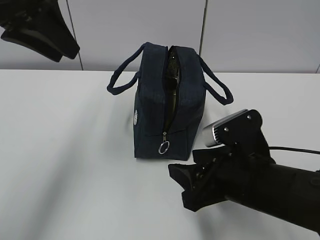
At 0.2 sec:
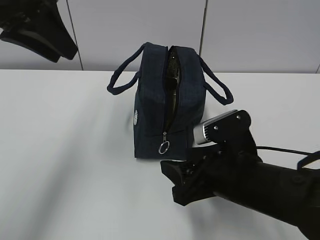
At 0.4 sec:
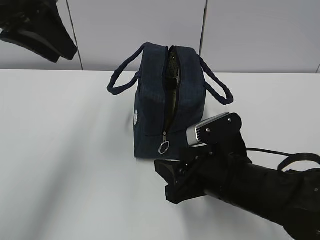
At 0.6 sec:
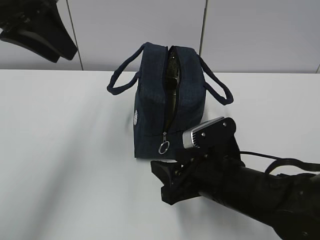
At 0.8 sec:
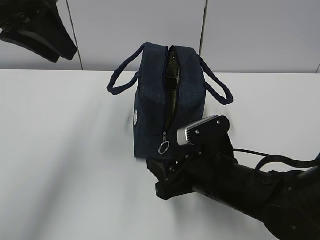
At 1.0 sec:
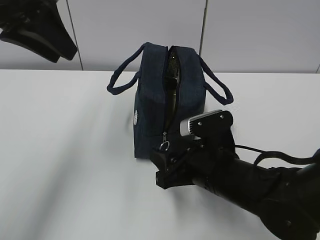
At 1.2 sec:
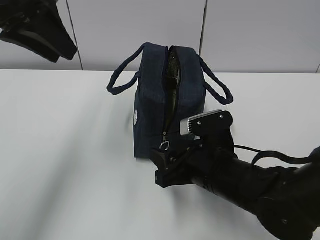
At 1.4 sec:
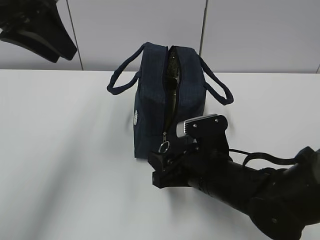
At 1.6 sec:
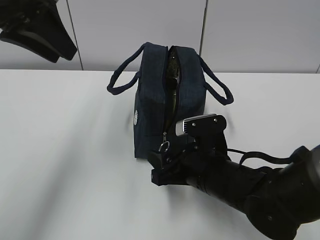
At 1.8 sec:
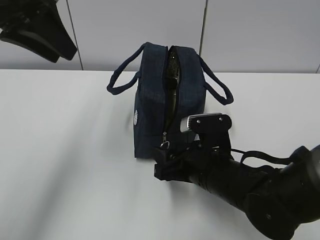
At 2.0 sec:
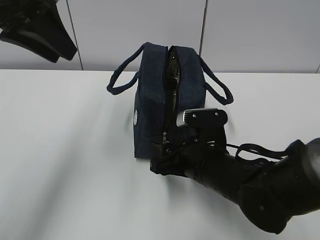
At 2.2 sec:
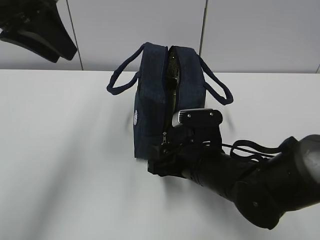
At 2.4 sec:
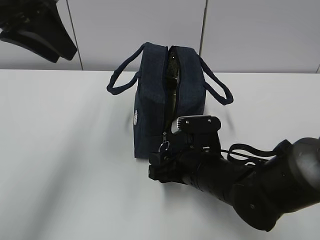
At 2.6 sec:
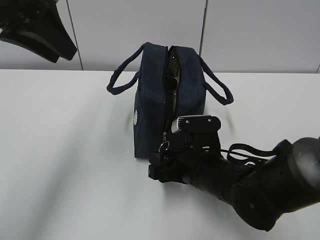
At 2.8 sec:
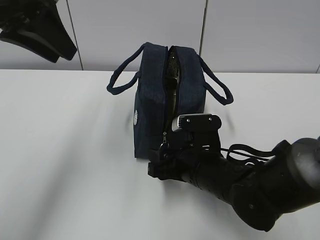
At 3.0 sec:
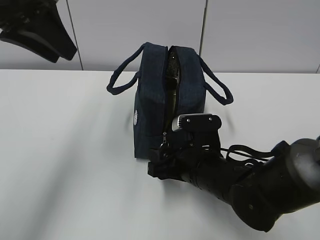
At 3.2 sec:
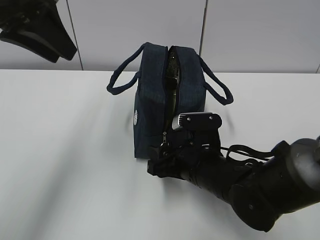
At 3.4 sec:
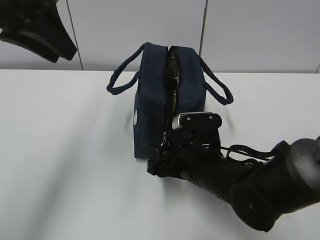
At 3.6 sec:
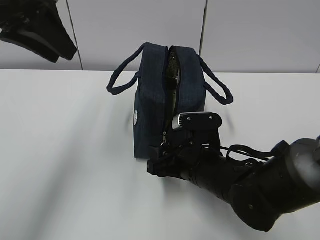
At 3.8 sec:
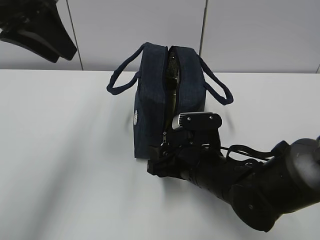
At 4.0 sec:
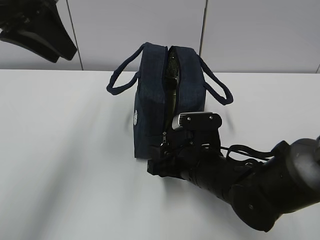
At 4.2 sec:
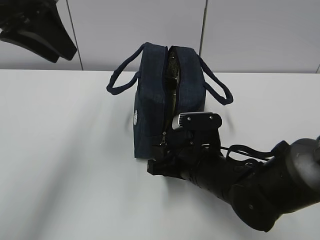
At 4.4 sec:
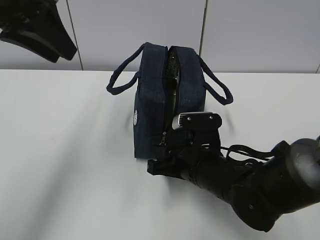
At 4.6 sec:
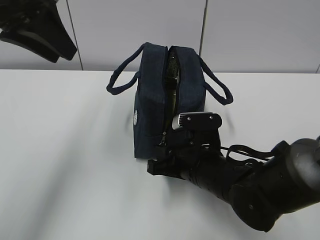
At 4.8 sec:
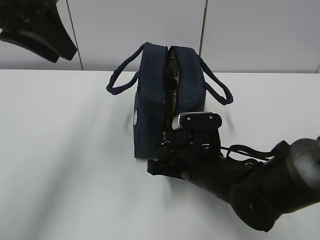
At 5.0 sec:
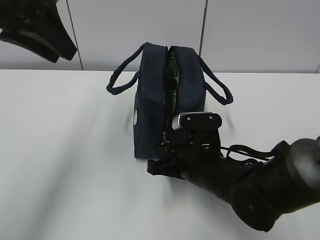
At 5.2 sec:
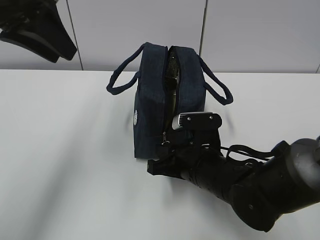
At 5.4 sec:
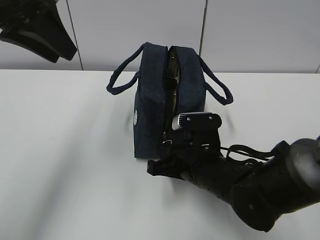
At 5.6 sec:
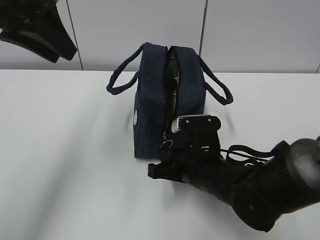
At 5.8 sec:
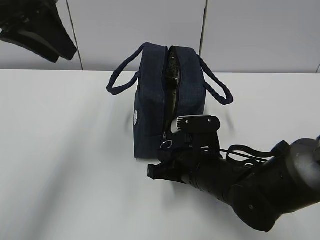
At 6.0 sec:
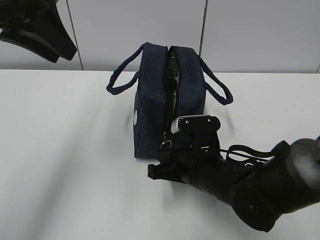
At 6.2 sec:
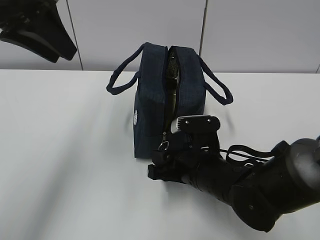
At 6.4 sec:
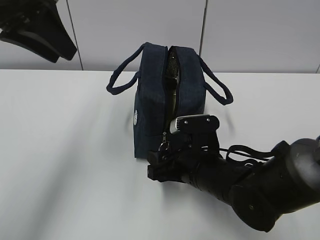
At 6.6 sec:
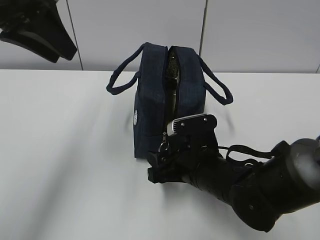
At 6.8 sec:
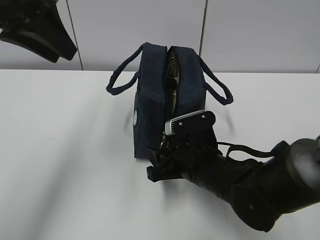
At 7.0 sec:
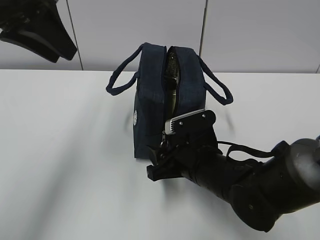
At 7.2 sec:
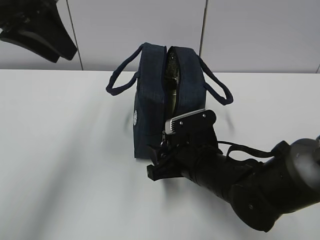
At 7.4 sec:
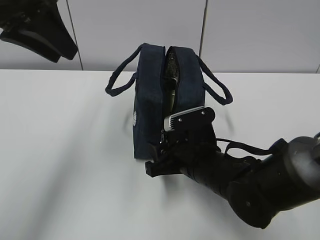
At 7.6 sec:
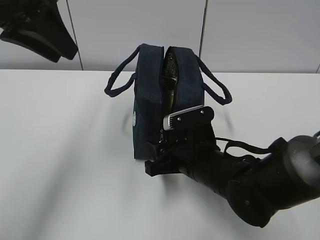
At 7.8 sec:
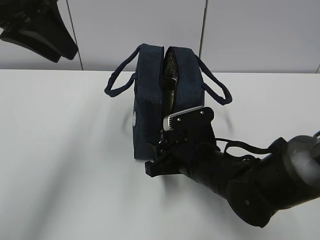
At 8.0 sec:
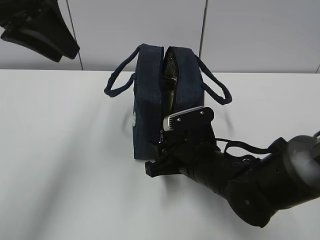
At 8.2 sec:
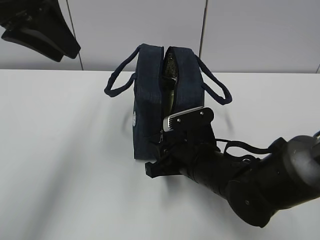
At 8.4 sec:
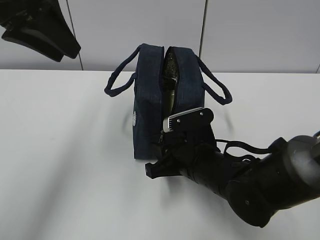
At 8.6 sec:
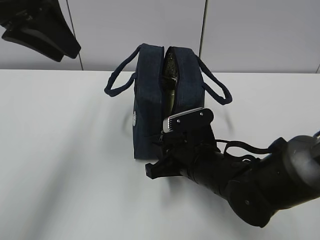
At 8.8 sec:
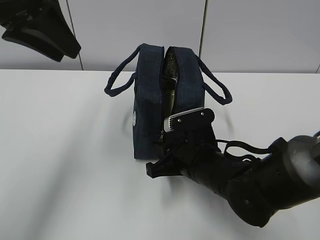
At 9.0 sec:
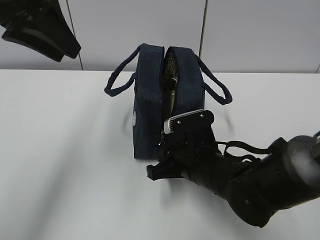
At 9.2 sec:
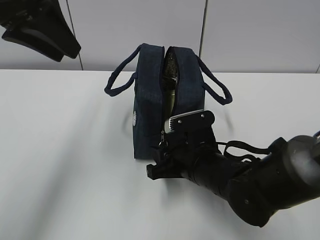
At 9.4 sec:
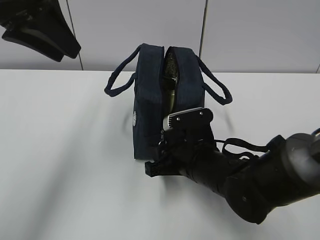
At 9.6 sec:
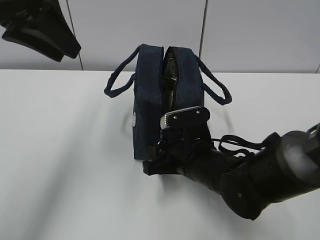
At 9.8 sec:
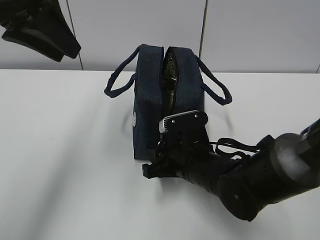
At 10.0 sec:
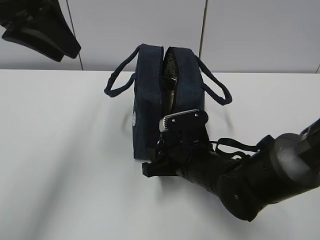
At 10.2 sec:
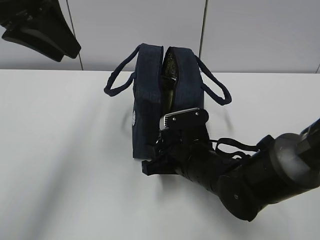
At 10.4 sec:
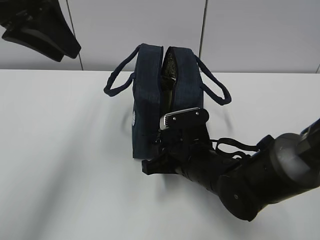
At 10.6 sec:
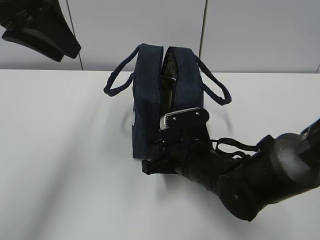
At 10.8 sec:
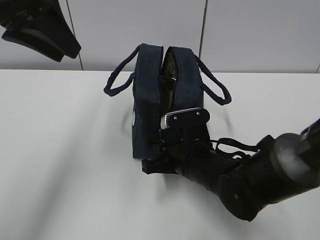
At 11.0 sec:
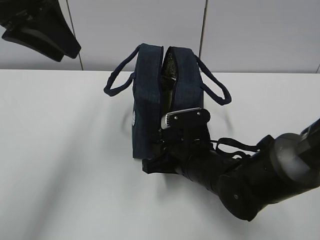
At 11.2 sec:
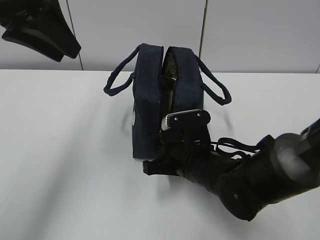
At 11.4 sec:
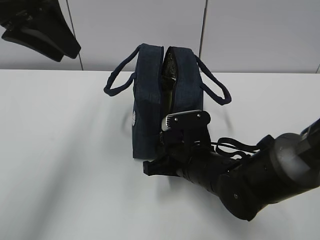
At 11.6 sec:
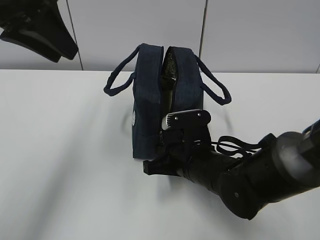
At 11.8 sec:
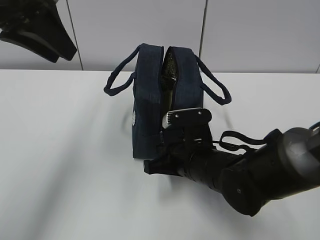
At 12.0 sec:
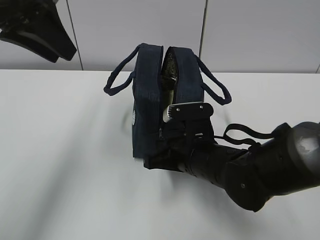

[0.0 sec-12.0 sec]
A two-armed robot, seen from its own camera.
0.0 sec to 1.6 sec: The right gripper travels downward and forward by roughly 10 cm.
1.6 sec to 3.0 sec: There are only small adjustments of the grippers.
3.0 sec to 4.4 sec: The two grippers keep their place.
4.4 sec to 6.0 sec: The right gripper closes.
6.0 sec to 7.6 sec: The right gripper opens.
7.6 sec to 9.0 sec: The two grippers keep their place.
9.0 sec to 10.4 sec: The two grippers keep their place.
10.4 sec to 12.0 sec: The right gripper closes its fingers.

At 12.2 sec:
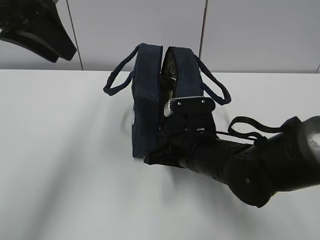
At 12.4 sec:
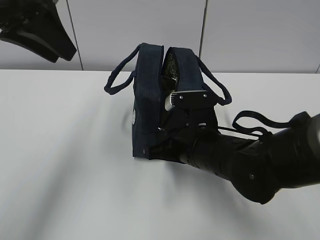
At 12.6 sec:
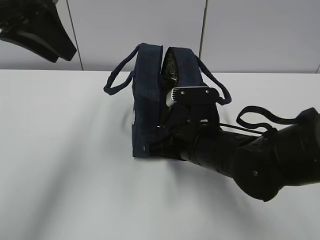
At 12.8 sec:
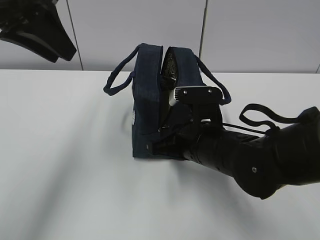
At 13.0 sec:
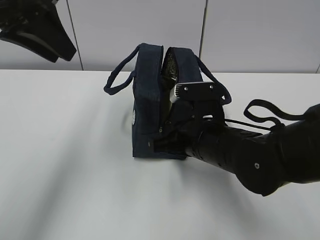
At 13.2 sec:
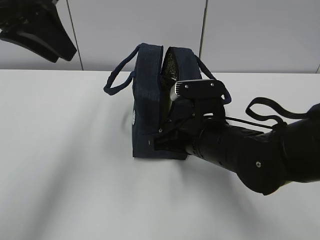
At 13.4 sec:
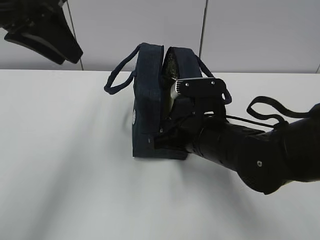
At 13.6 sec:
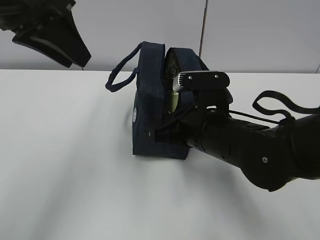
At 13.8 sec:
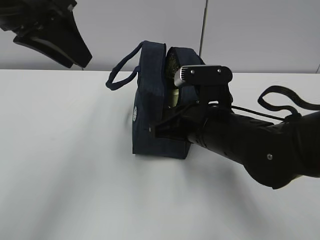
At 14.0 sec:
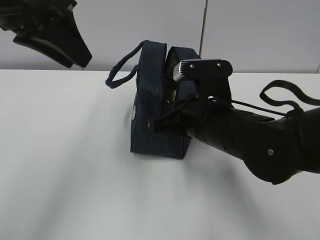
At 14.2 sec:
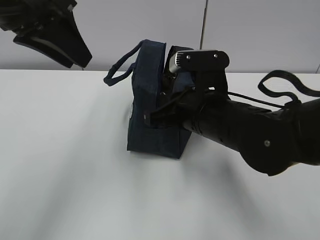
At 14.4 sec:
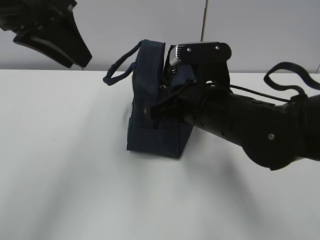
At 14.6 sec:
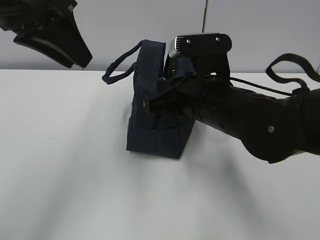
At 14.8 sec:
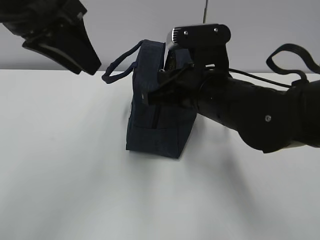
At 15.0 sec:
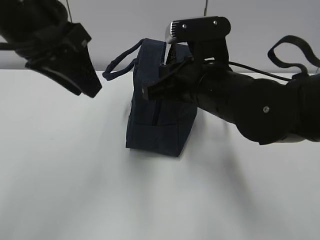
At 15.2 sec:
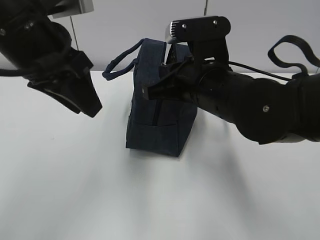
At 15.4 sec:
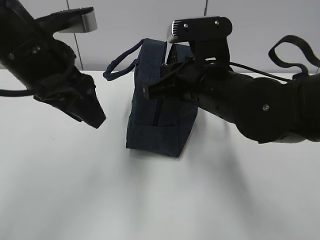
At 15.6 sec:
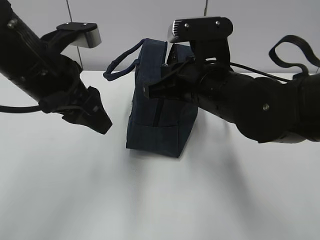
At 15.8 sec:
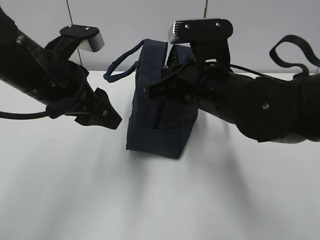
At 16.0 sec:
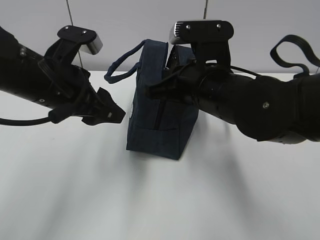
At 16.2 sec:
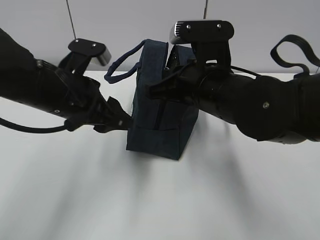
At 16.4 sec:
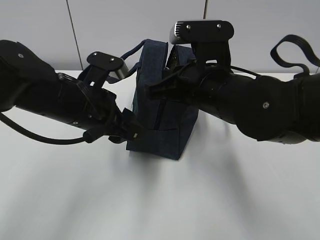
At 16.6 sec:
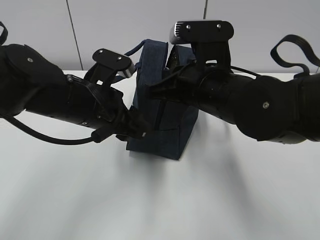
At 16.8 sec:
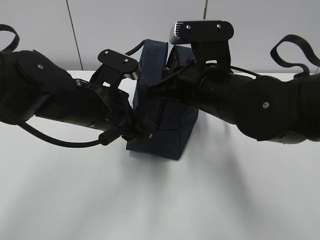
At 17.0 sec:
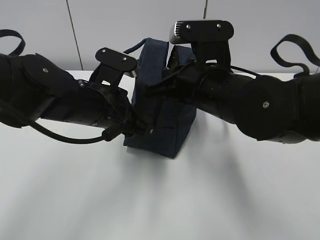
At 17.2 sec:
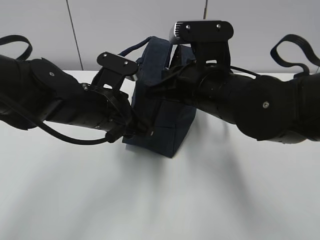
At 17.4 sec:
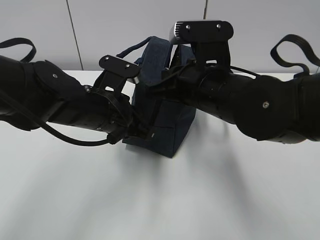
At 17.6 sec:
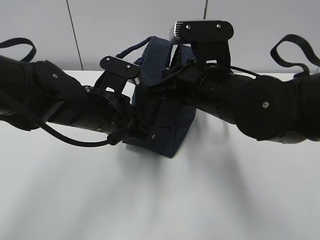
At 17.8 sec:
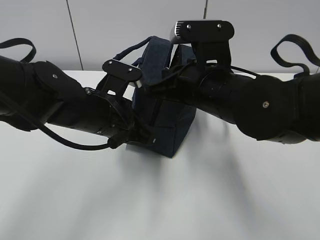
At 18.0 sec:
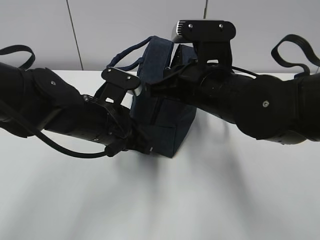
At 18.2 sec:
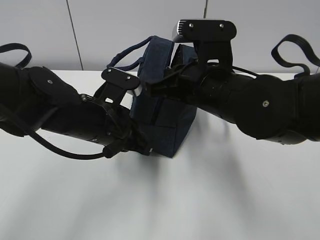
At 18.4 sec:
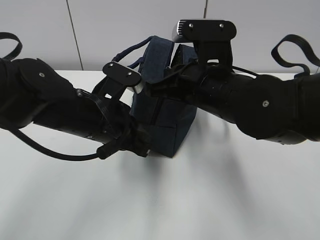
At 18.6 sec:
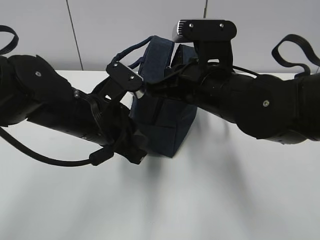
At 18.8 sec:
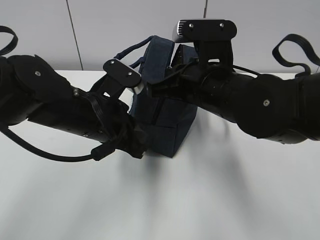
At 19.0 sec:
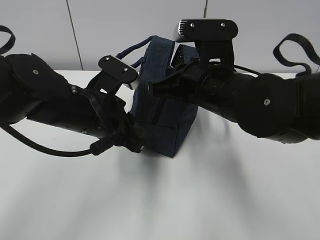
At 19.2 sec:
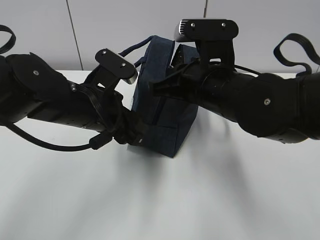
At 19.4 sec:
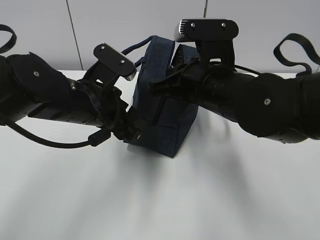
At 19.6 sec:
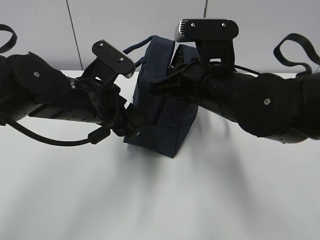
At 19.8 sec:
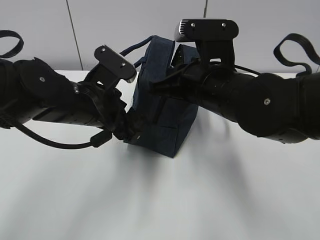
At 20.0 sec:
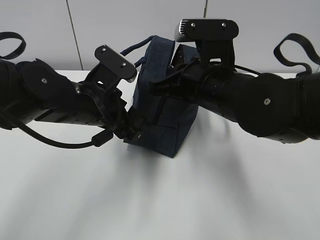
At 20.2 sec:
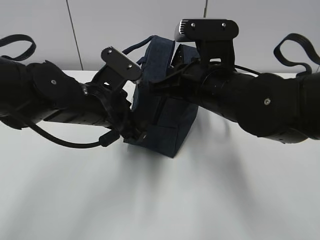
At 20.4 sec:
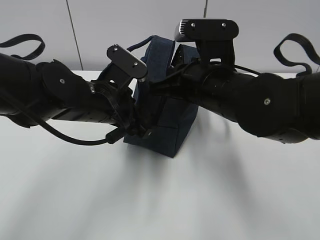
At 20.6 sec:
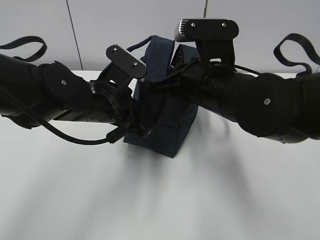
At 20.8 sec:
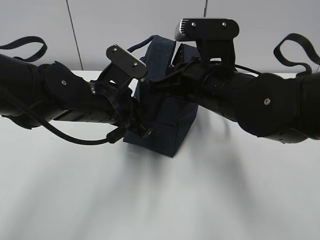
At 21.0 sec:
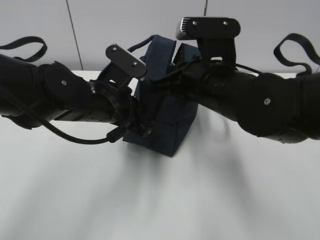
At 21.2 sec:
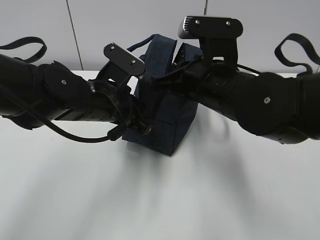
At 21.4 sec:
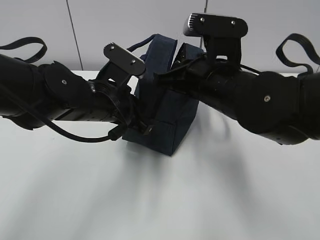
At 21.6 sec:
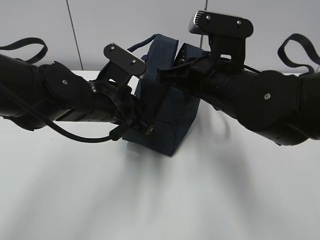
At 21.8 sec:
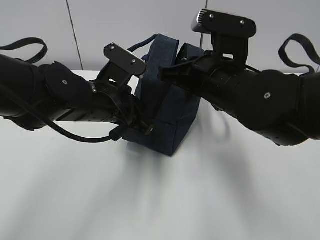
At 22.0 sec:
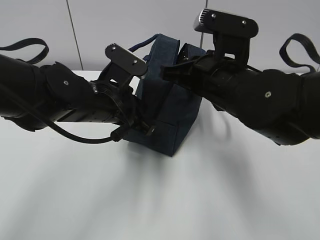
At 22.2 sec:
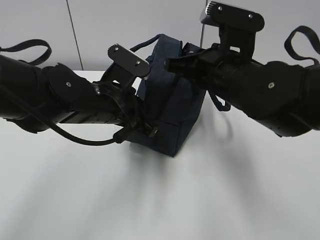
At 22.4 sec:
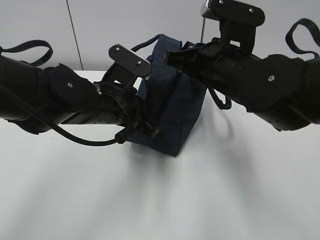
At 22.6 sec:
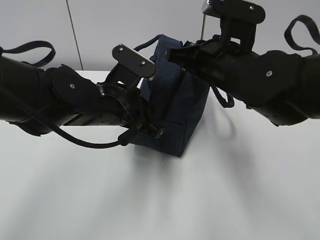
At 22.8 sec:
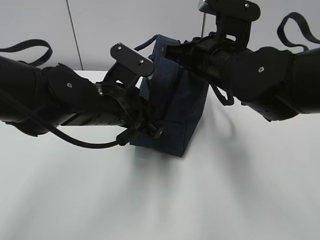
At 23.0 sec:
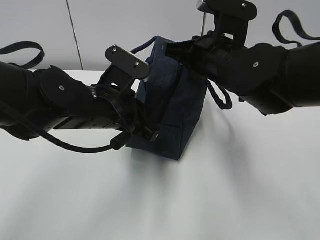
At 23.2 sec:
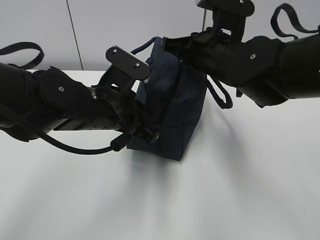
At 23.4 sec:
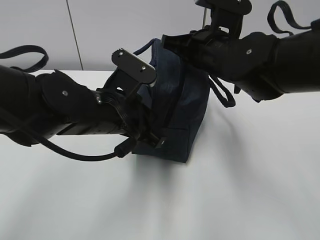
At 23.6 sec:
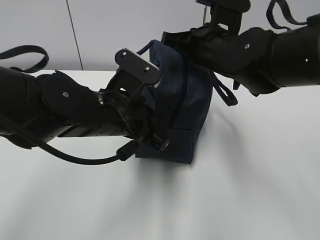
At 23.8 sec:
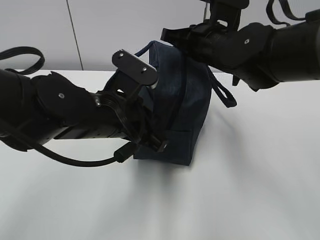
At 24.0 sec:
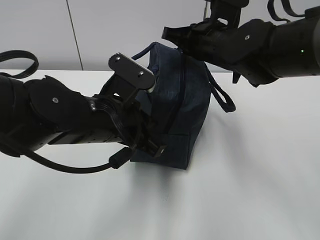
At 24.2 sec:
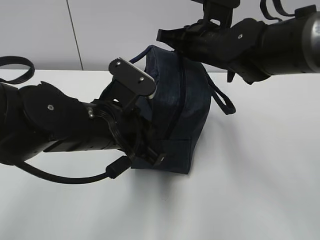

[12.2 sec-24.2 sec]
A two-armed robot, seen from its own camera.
Step, 12.2 sec to 23.2 sec: Pull the zipper with your right hand.
12.2 sec to 13.8 sec: The right gripper goes some 5 cm upward.
13.8 sec to 15.2 sec: The right gripper heads upward, covering approximately 5 cm; the left gripper changes place by about 5 cm.
15.2 sec to 16.6 sec: The left gripper travels downward by roughly 10 cm.
16.6 sec to 18.2 sec: The left gripper closes.
18.2 sec to 19.8 sec: The left gripper opens its fingers.
19.8 sec to 21.2 sec: The left gripper closes.
22.6 sec to 24.2 sec: The right gripper goes approximately 10 cm forward; the left gripper shifts approximately 5 cm backward.
